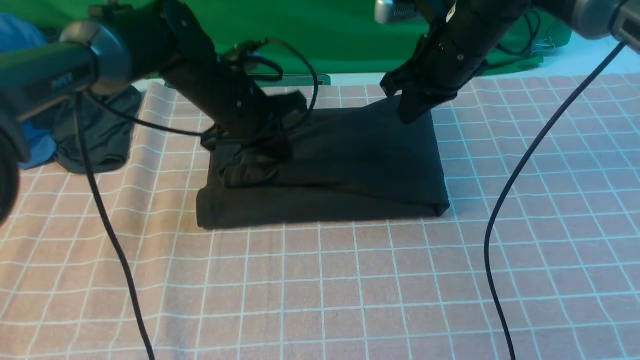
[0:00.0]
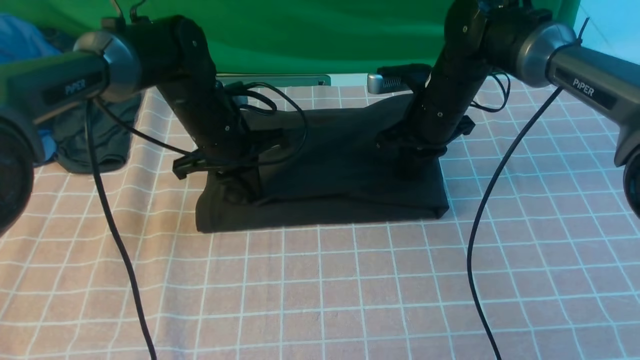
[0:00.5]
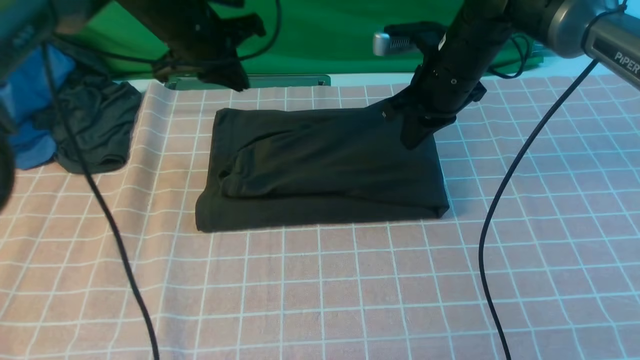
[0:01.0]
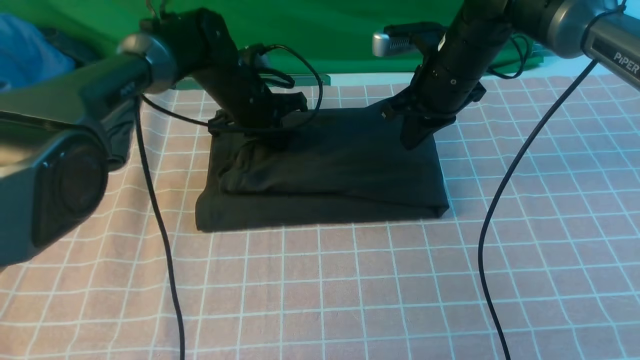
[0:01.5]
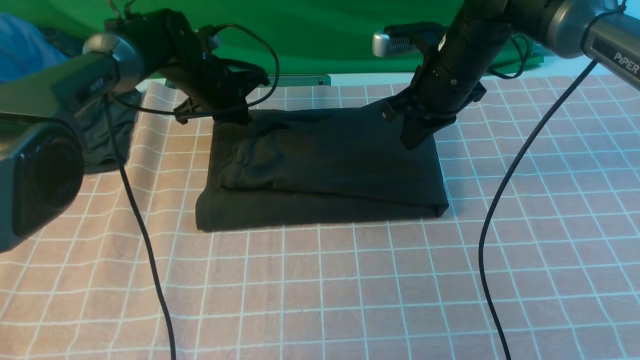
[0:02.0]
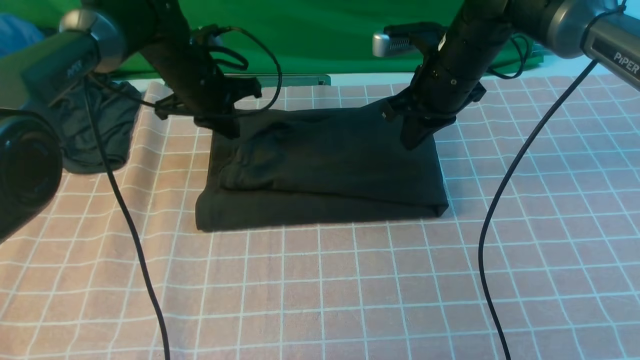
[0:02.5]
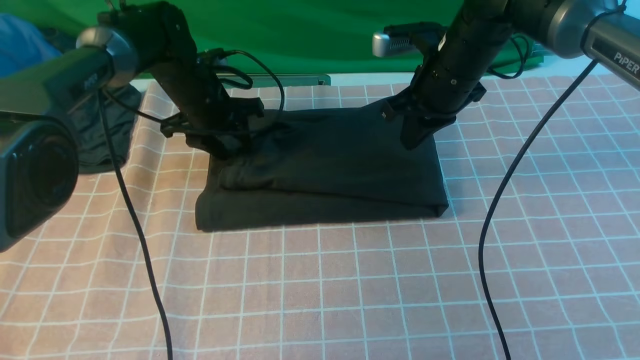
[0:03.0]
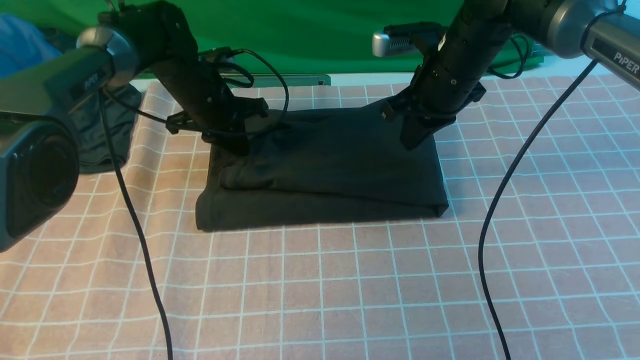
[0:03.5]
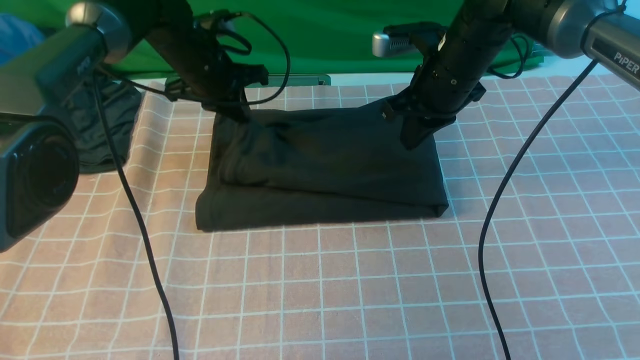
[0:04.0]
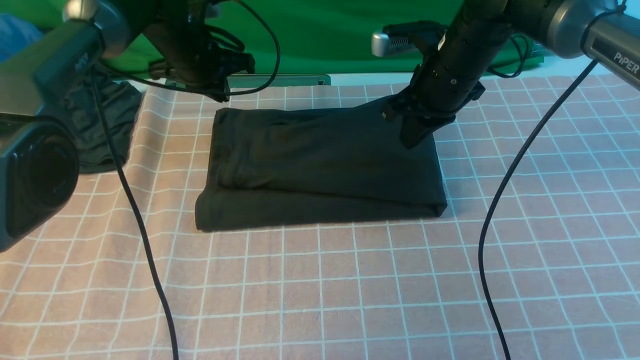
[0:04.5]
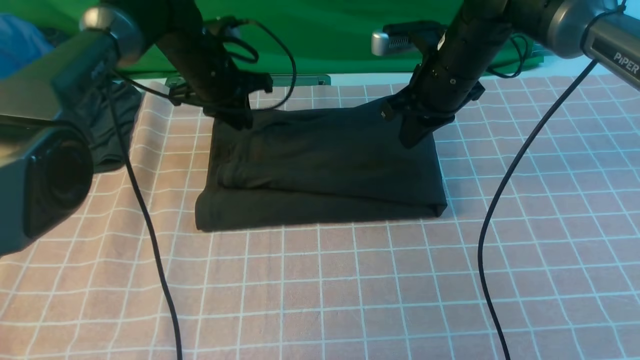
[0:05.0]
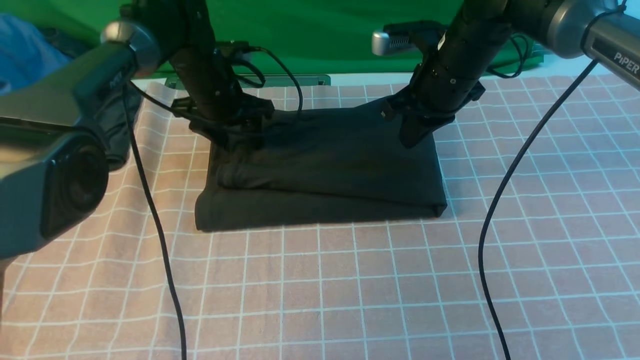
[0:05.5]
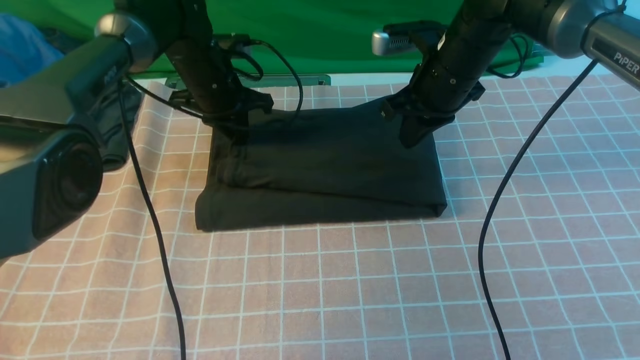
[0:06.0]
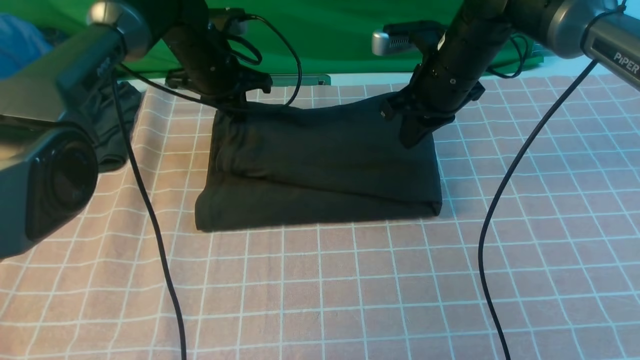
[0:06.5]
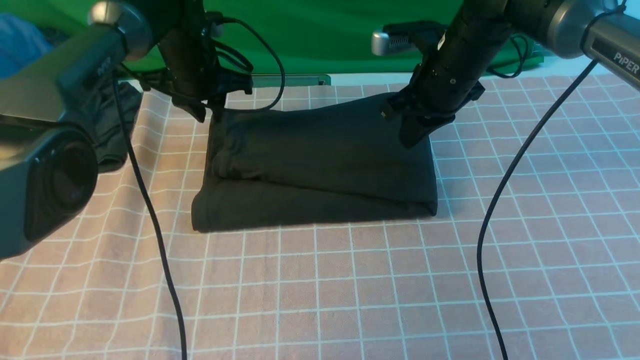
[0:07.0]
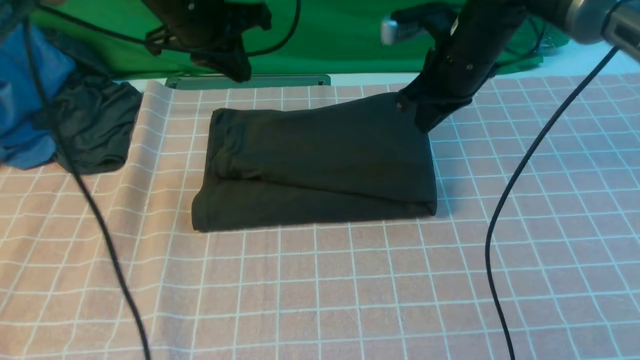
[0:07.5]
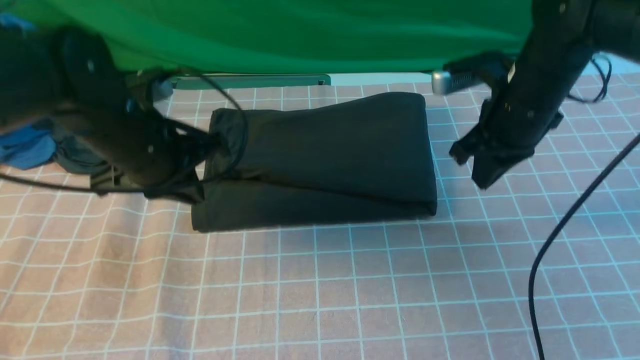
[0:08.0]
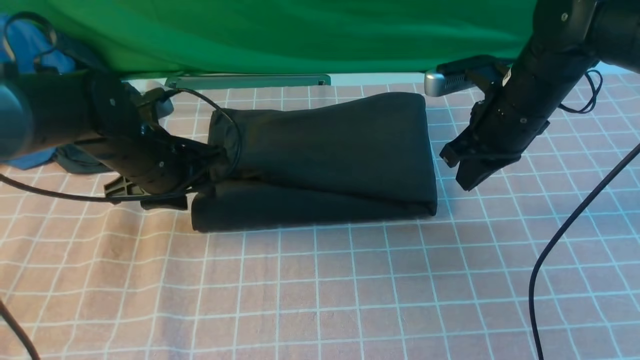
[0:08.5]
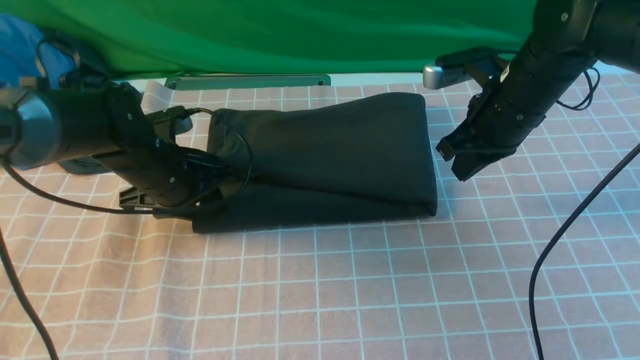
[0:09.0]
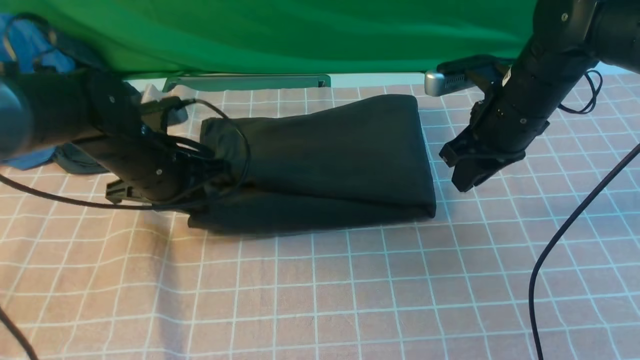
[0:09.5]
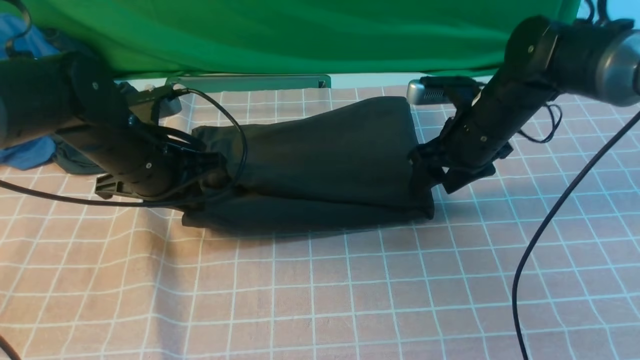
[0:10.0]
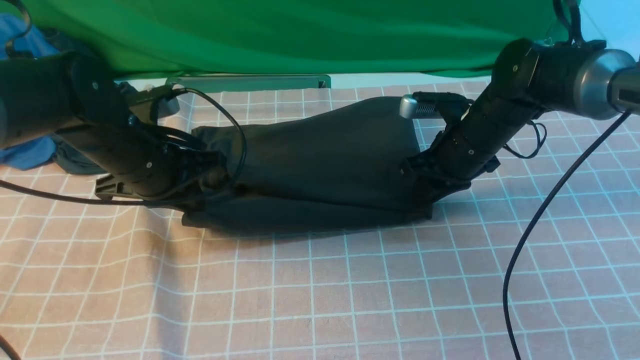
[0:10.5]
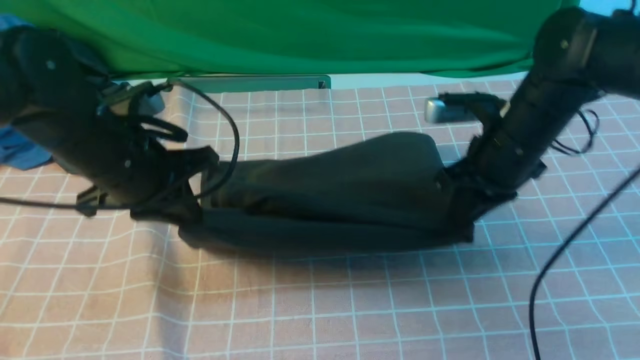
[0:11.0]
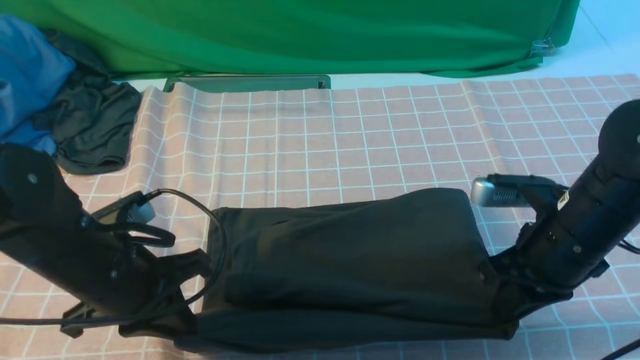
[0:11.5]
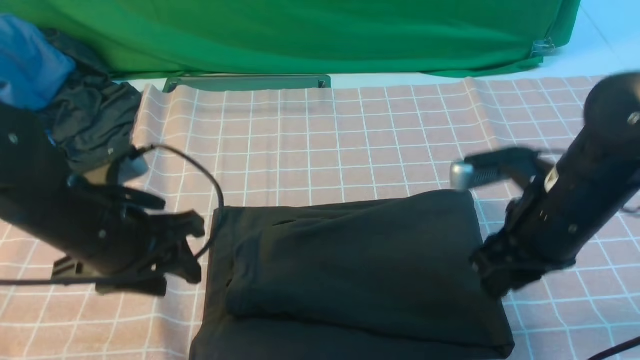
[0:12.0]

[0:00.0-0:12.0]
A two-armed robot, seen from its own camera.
0:00.0 to 0:02.0: The left gripper moves forward, roughly 10 cm.
0:02.0 to 0:04.0: The left gripper opens, then closes once more.
0:04.0 to 0:06.0: The left gripper opens, then closes once more.
0:06.0 to 0:08.0: The left gripper moves backward, approximately 15 cm, while the right gripper is displaced backward and to the right by some 10 cm.
0:08.0 to 0:10.0: The left gripper travels downward and back again, about 10 cm each way, and opens and closes again. Meanwhile the right gripper shifts approximately 5 cm downward, and opens its fingers.
0:10.0 to 0:12.0: Both grippers move backward, roughly 15 cm. The right gripper closes up; the left gripper opens.

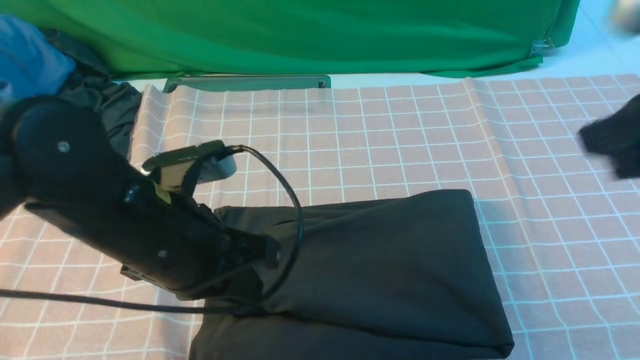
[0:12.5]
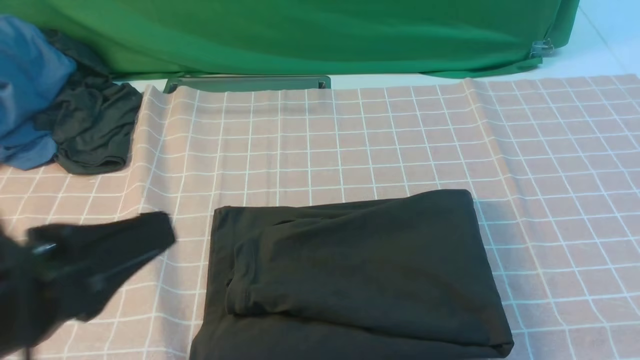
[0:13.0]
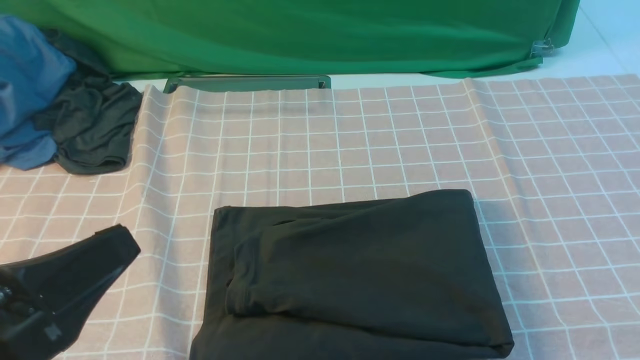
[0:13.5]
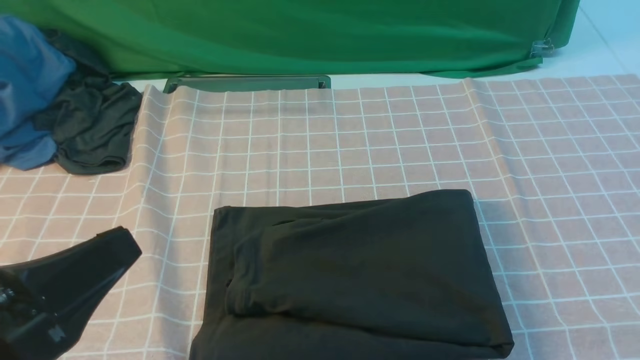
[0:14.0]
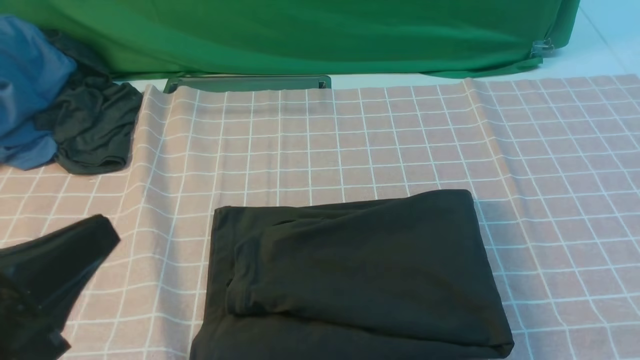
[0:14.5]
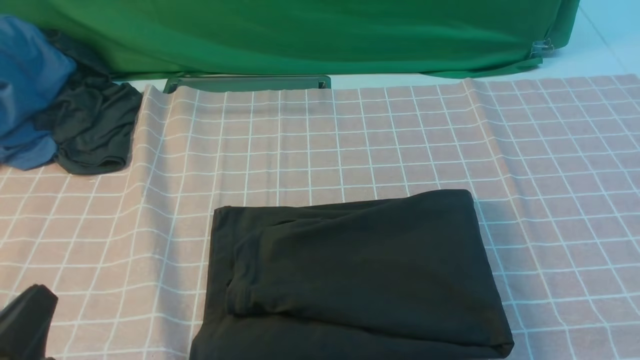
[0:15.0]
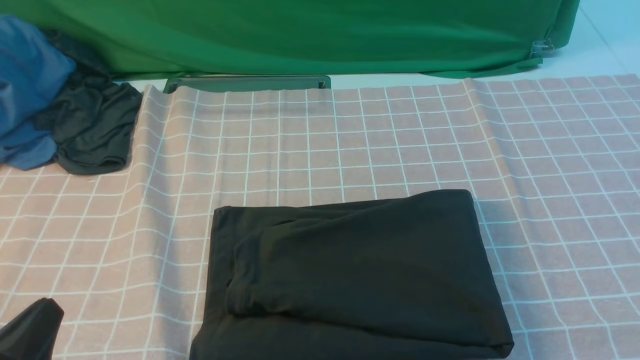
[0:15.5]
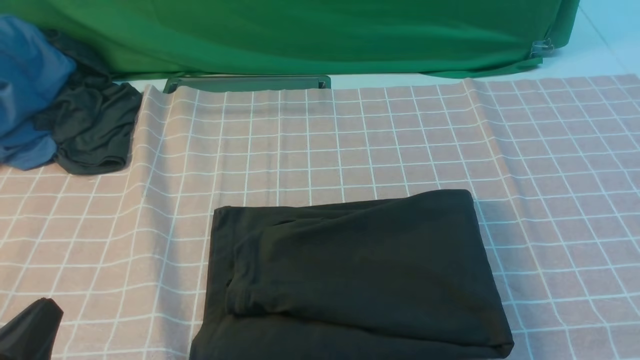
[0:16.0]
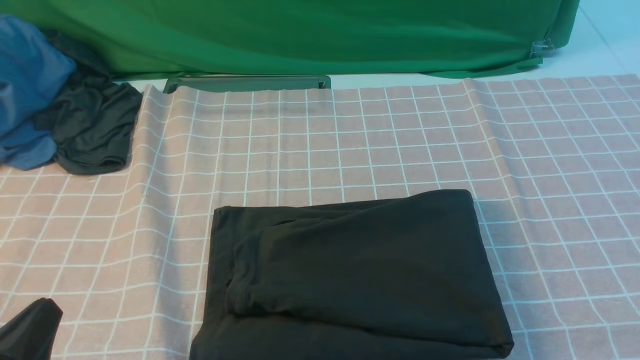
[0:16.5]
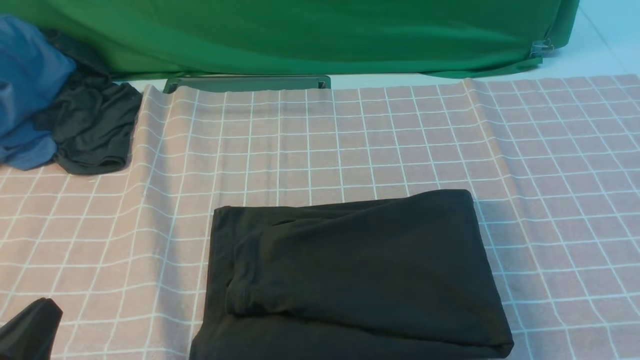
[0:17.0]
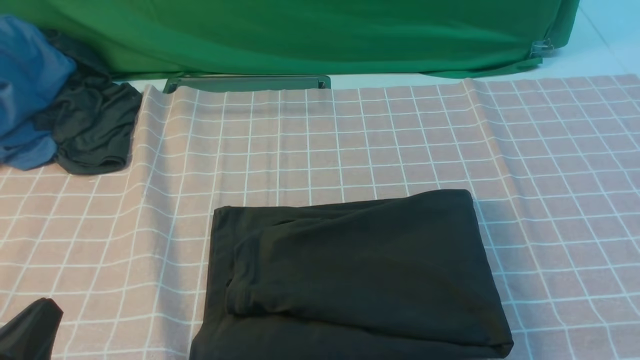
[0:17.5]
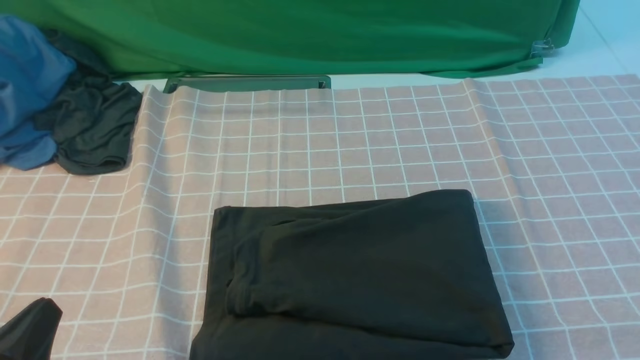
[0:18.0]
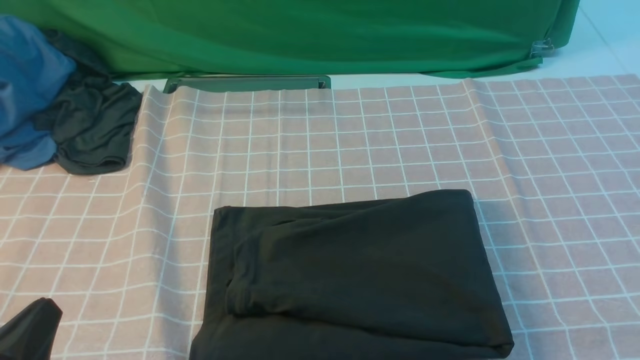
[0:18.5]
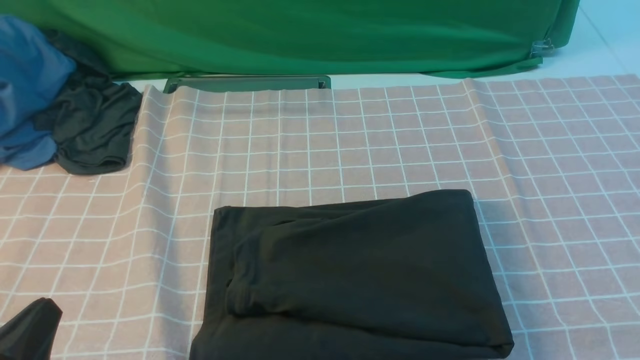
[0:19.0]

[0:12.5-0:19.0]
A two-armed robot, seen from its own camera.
0:12.5 to 0:14.5: The left gripper moves backward and to the left, about 15 cm, while the right gripper heads backward and to the right, covering roughly 20 cm, and opens its fingers.
0:14.5 to 0:17.0: The left gripper shifts some 10 cm downward.
